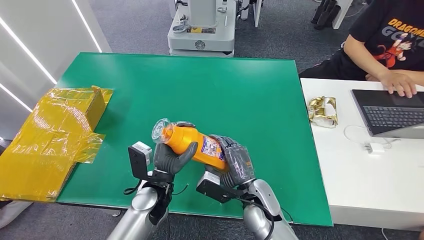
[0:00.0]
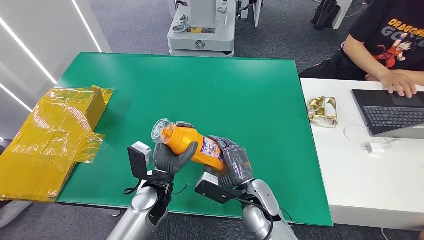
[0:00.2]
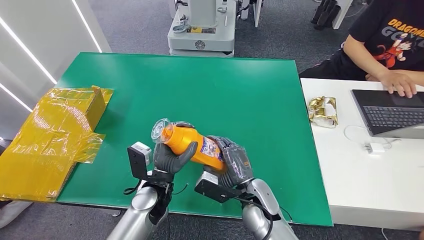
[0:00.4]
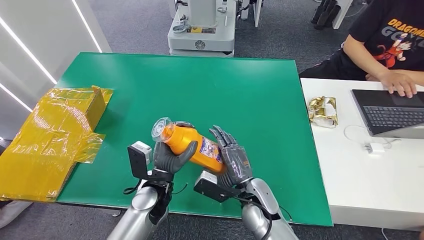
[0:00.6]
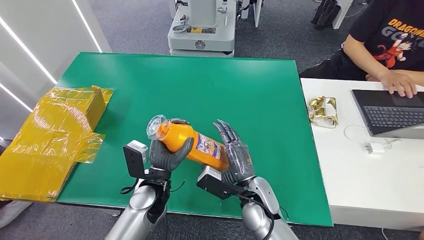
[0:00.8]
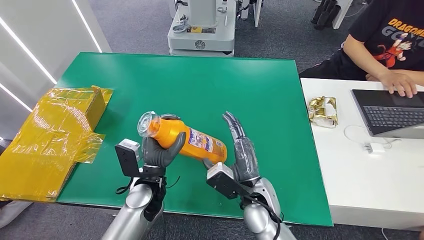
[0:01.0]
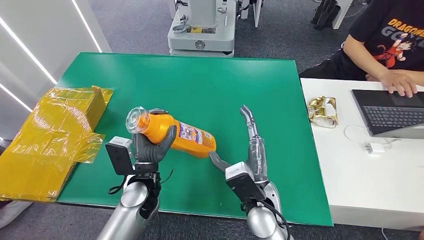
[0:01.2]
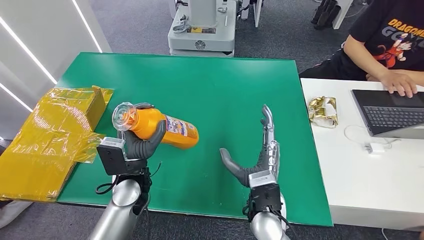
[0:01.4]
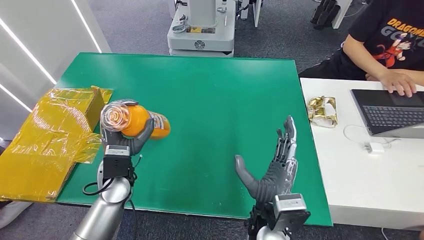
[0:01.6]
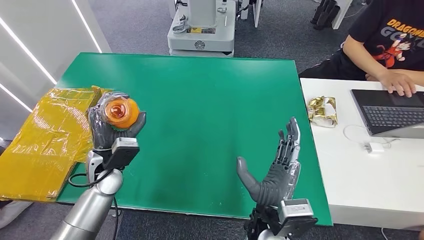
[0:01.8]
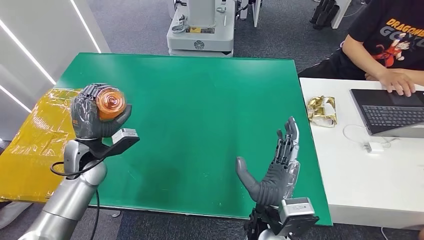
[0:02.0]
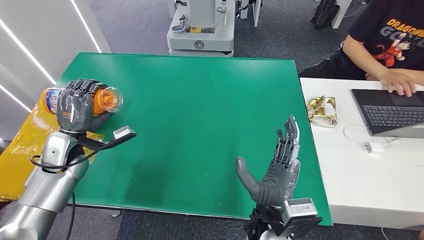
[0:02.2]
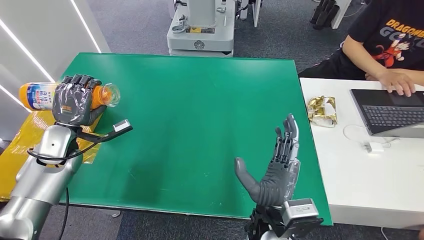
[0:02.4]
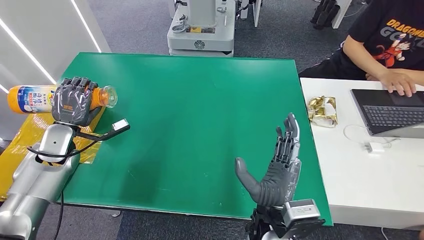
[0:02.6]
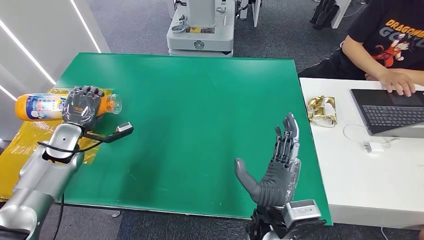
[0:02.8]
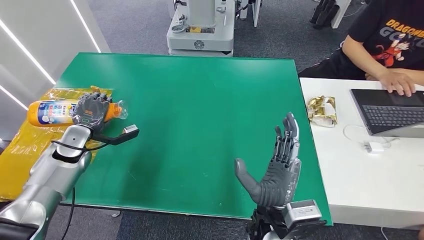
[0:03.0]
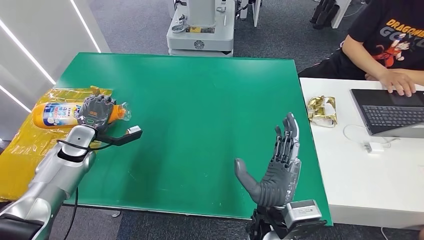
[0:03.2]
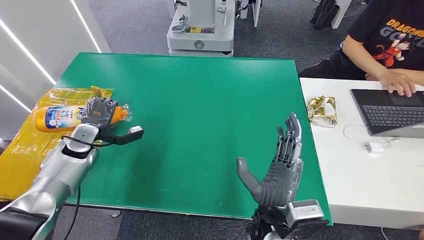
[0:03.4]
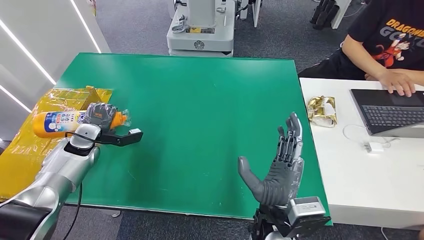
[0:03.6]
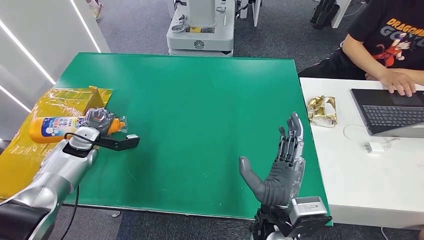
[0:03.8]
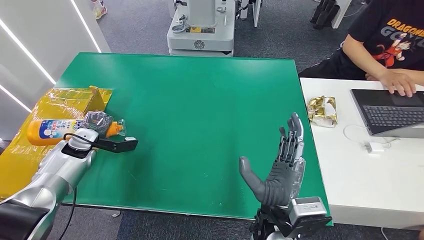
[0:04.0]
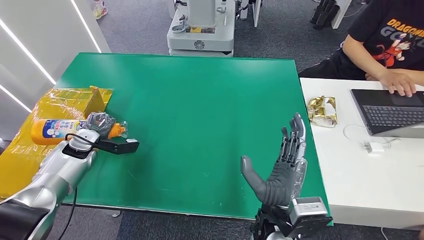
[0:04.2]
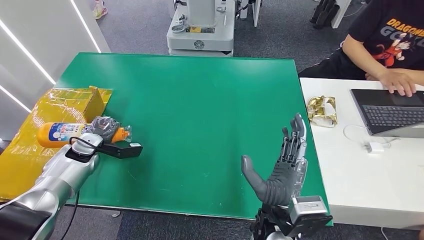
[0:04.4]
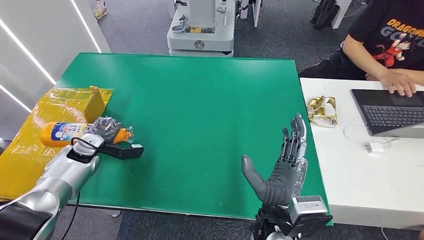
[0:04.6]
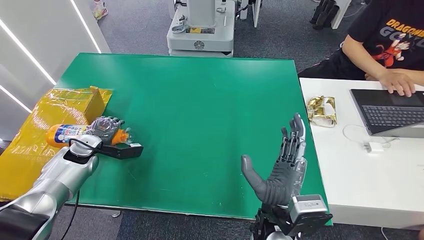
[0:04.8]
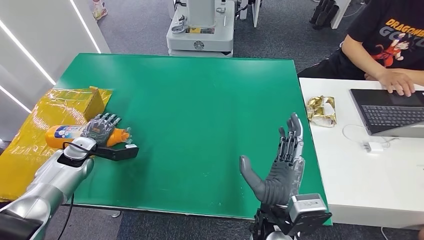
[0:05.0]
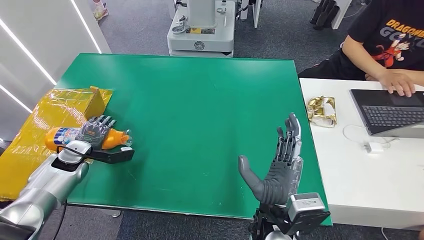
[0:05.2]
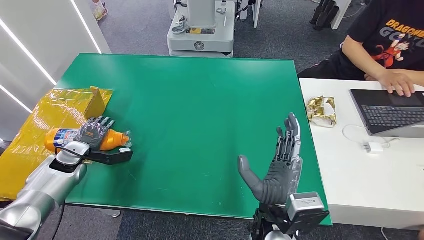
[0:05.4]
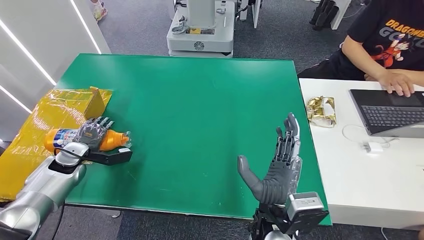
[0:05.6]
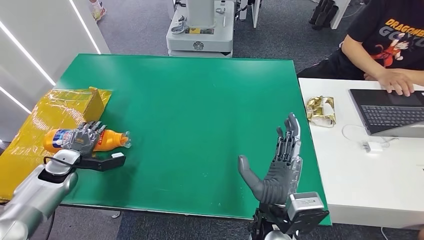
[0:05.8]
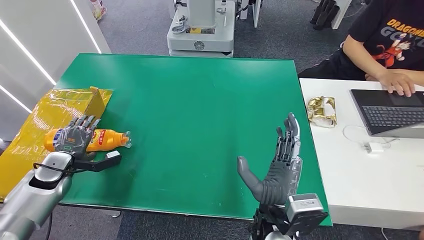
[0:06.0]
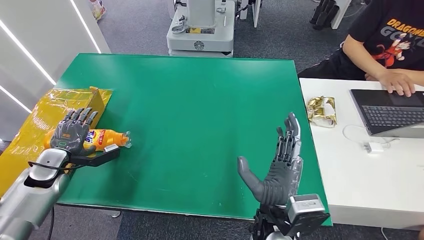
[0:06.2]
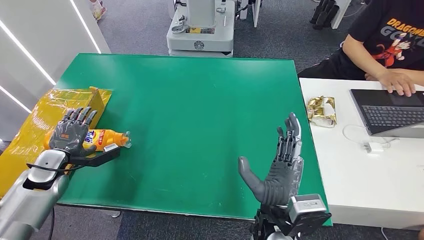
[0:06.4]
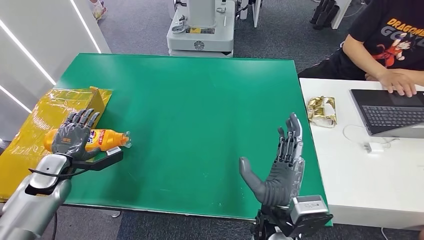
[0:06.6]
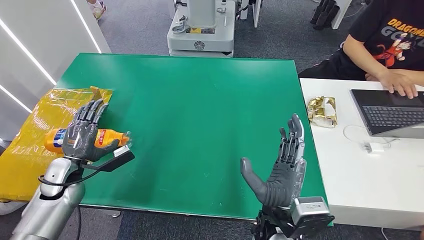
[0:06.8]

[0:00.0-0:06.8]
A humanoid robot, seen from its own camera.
Step, 0:00.0 to 0:05.6: Turn the bottle to the front side.
0:00.0 to 0:01.4: The left hand ends up about 5 cm from where it was. The right hand heads upward, covering about 5 cm.
0:02.8 to 0:04.0: The left hand shifts by some 5 cm.
0:04.0 to 0:05.4: The left hand changes place by about 5 cm.
0:05.4 to 0:06.8: The left hand is displaced backward by approximately 5 cm.
